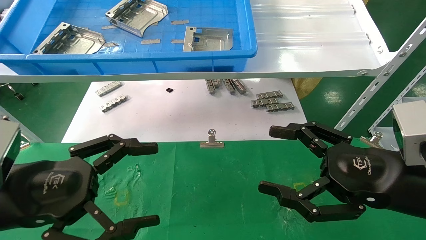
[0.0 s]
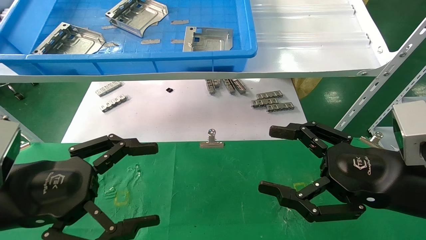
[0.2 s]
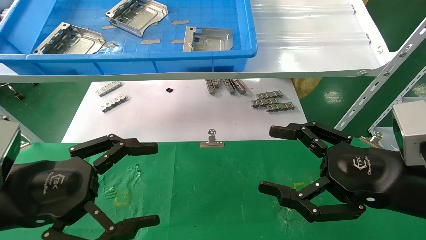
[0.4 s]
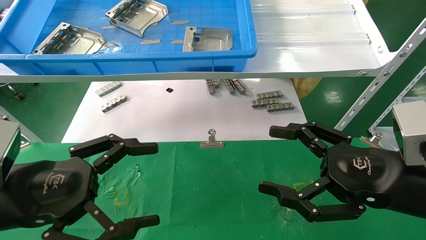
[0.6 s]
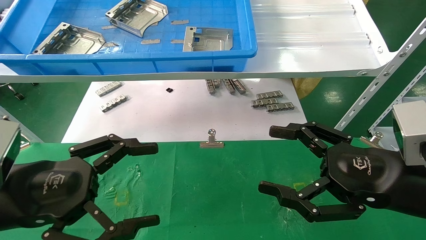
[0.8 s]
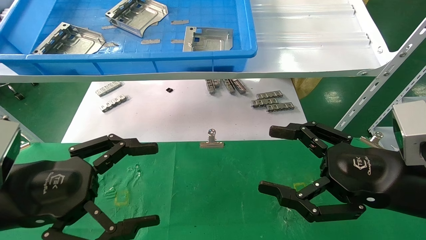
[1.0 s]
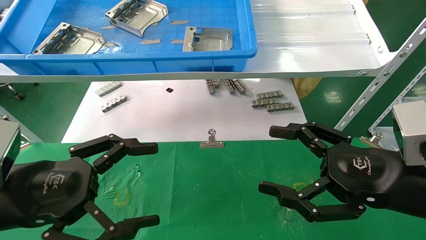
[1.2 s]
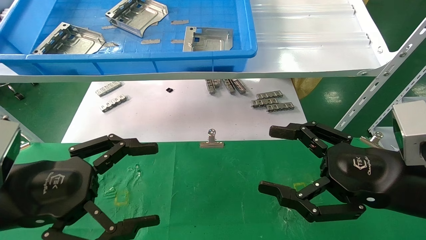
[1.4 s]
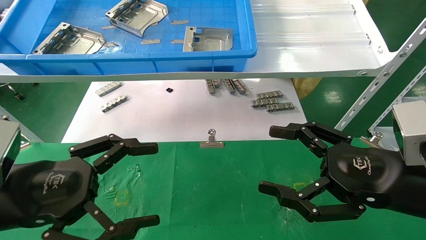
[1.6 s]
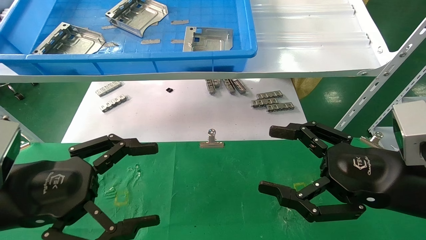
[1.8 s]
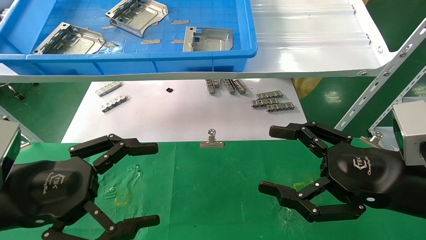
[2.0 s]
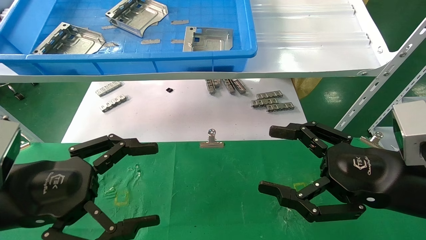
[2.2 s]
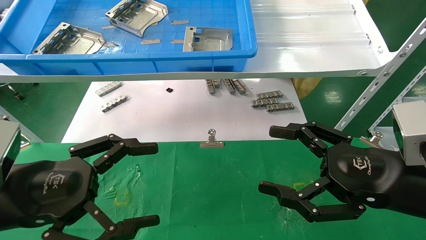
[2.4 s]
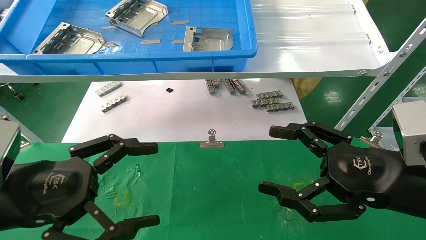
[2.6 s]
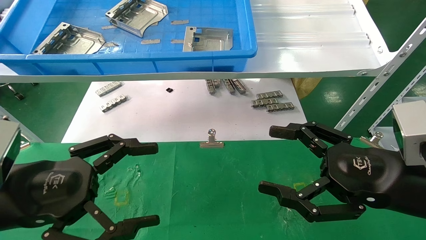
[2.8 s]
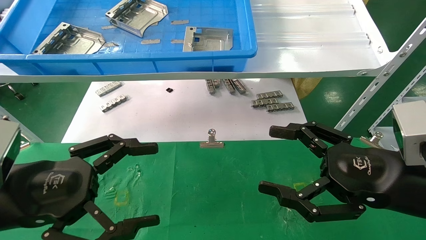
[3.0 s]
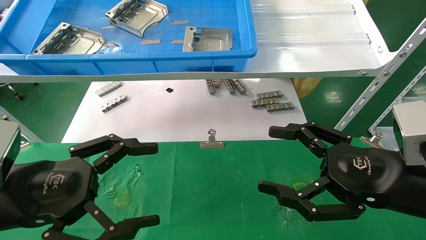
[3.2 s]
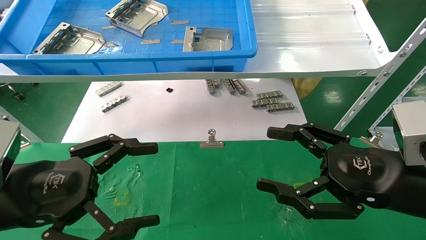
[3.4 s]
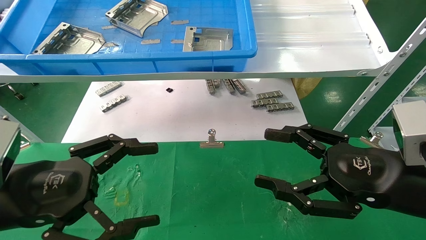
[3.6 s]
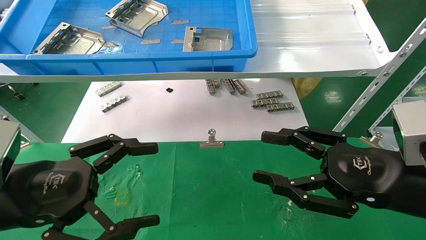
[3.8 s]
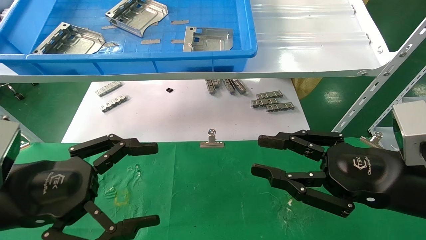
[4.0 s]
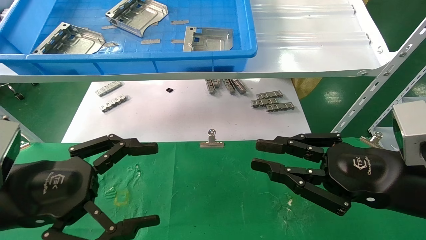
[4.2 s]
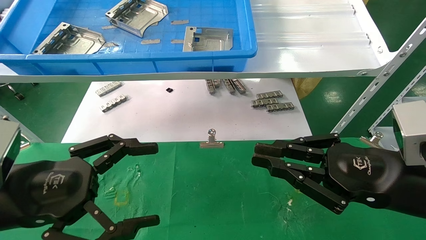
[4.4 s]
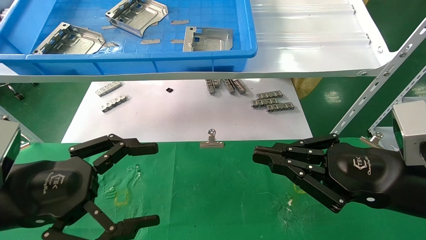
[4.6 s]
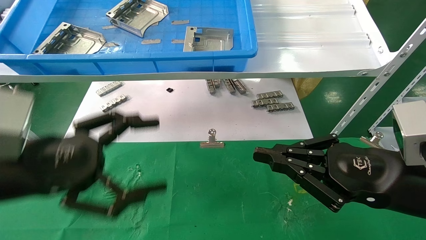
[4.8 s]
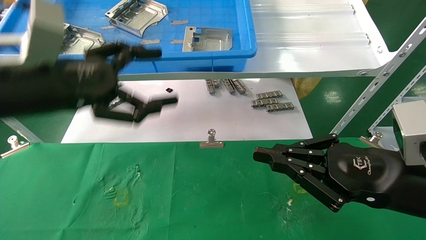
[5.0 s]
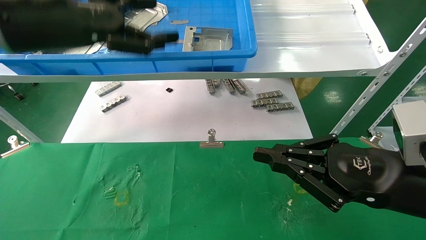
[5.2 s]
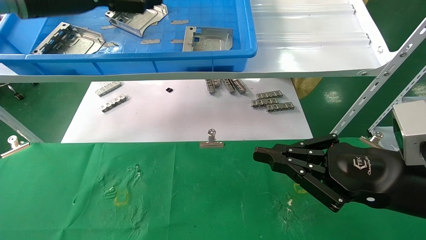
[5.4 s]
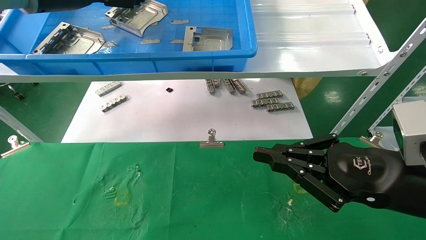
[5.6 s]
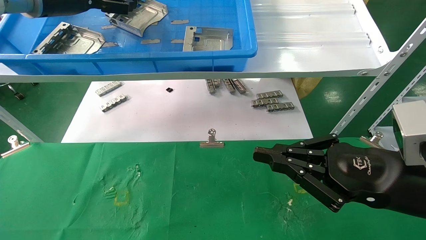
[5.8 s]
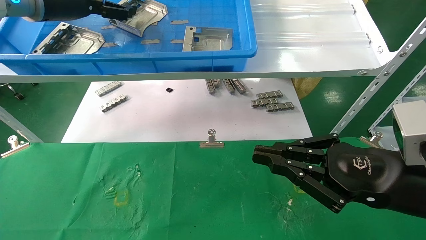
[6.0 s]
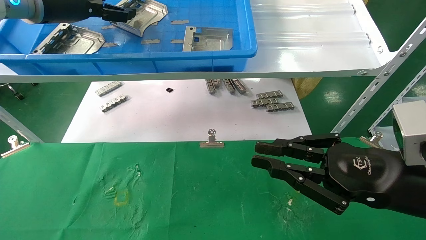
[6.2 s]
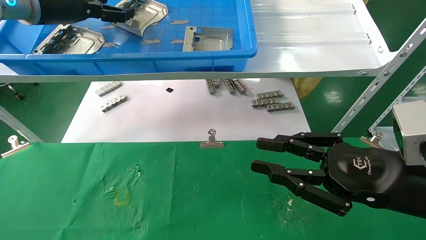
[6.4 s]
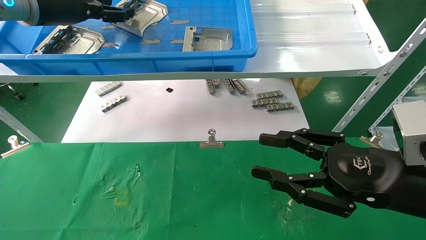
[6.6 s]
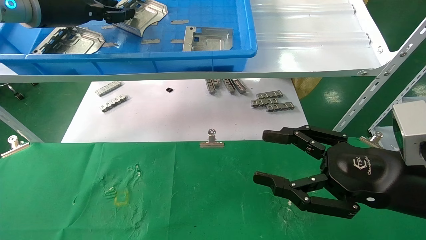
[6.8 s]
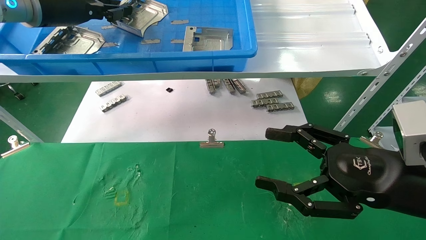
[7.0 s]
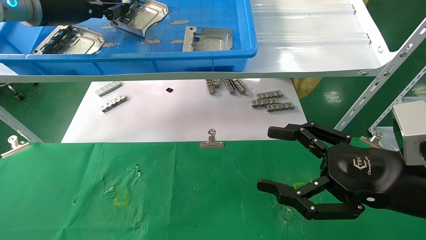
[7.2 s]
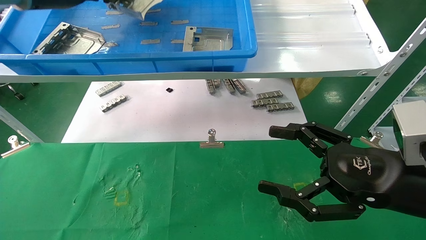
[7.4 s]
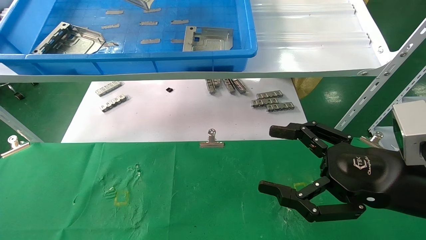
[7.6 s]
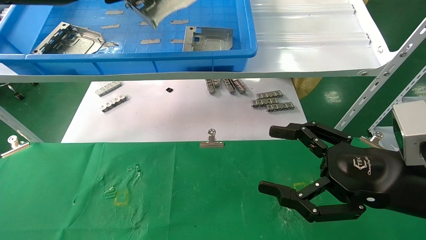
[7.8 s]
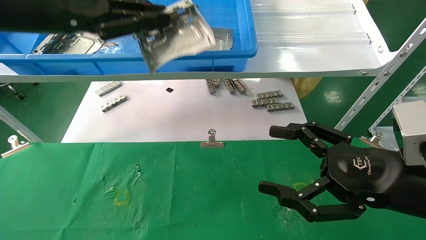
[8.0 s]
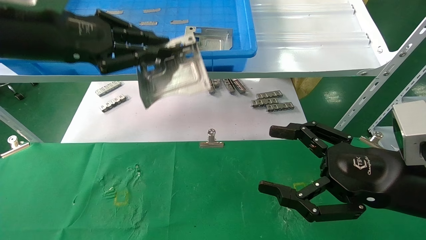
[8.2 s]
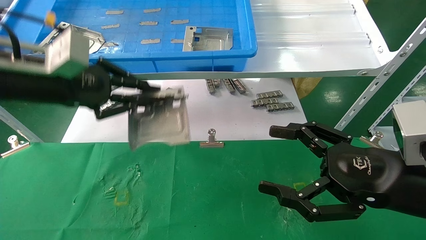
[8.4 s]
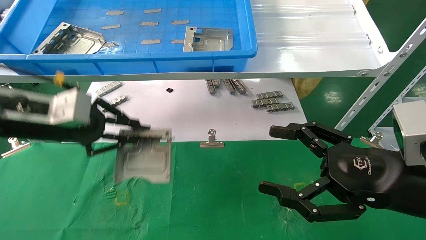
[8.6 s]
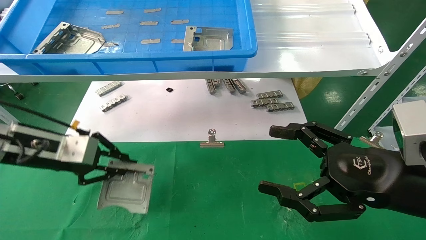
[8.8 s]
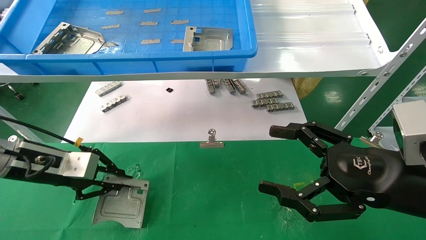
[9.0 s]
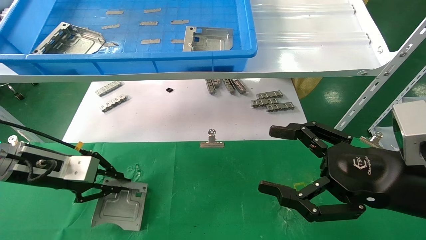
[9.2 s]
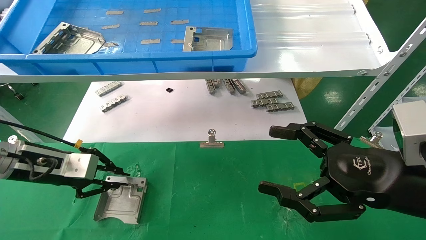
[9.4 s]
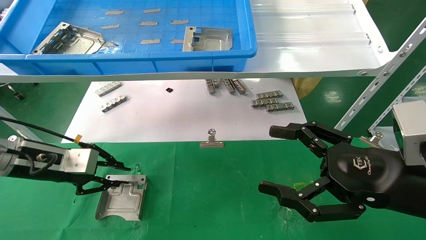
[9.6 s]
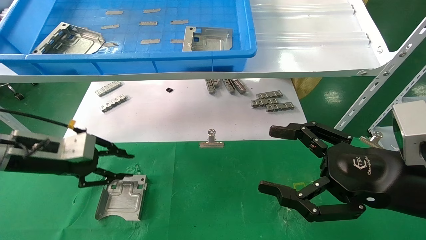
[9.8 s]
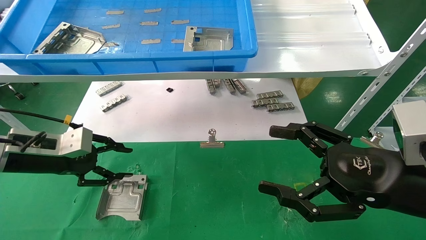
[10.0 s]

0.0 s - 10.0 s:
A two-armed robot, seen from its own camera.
Task of the whole recording: use the mechanical arm to pick up the parts and place them on the table.
Step, 5.2 s - 7.2 s: Pick up the hard drive bracket from the feeding area.
Step, 7.4 s - 9.6 s: Place the hard drive bracket into the box.
0.0 s - 2.8 s: Both grippers stay put.
2.8 s - 4.2 s: The right gripper closes.
4.2 s - 5.8 s: The left gripper goes approximately 35 cm upward and forward. Meanwhile the right gripper closes its fingers.
5.8 s - 7.2 s: The right gripper opens, while the left gripper closes.
7.2 s - 8.6 s: The left gripper heads downward and backward, covering approximately 20 cm.
8.6 s - 10.0 s: The left gripper goes about 10 cm downward, and opens its fingers.

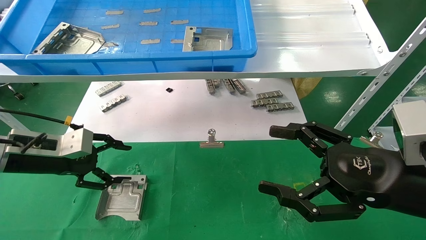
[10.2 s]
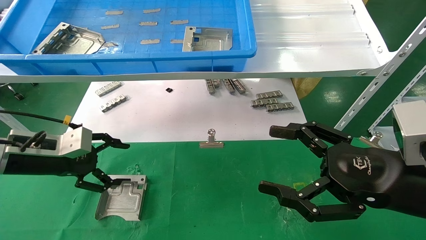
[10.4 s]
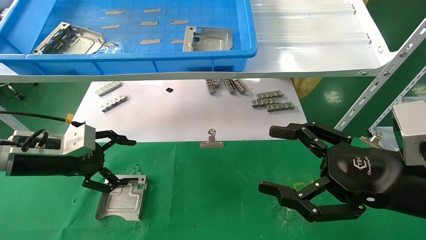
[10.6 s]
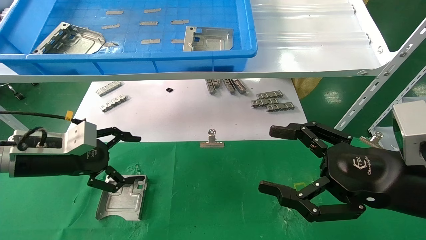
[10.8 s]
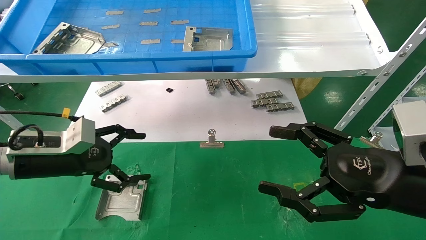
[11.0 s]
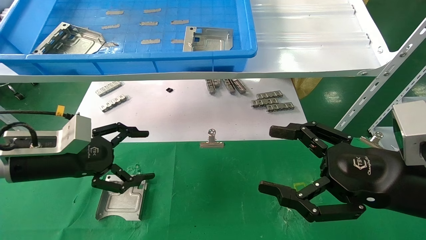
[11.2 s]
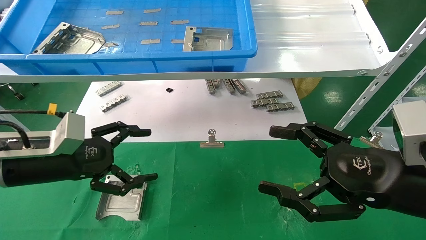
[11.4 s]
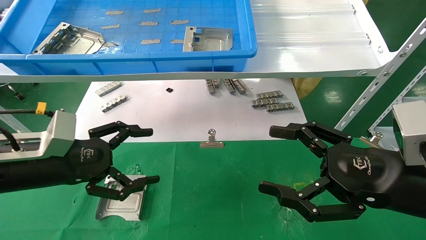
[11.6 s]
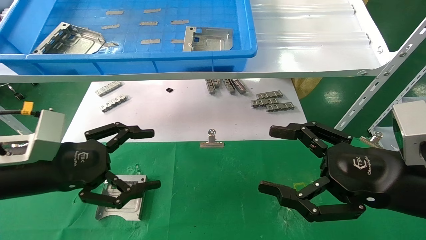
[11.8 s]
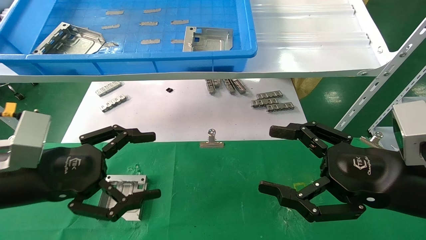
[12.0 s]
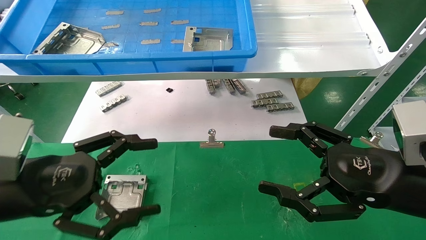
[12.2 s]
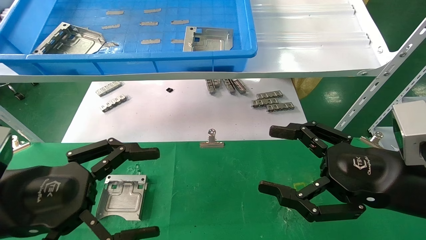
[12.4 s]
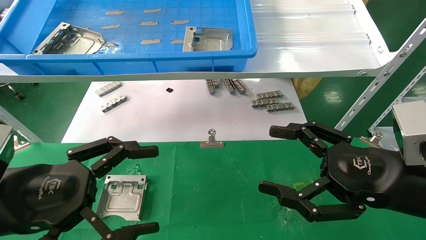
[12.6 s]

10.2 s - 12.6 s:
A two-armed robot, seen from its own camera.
Task of the whole recording: use the mechanical arm to pick up the parts and place them on the table.
10.2 s - 11.4 s: The left gripper ends up about 5 cm from where it was, and opens up.
11.4 s - 12.6 s: The left gripper travels backward by approximately 10 cm.
